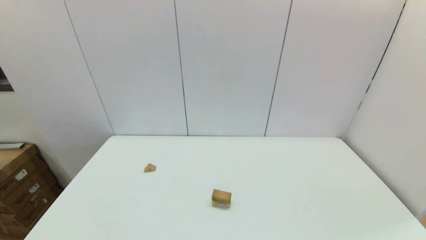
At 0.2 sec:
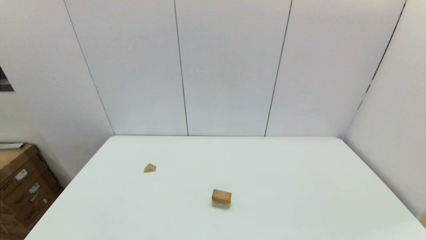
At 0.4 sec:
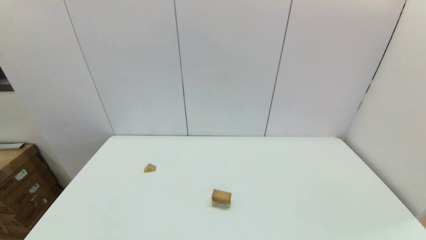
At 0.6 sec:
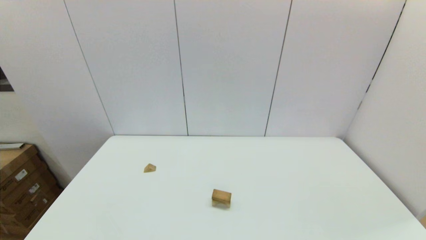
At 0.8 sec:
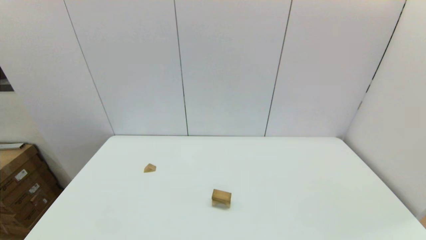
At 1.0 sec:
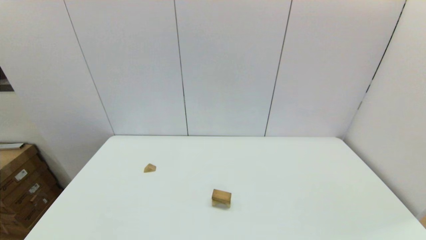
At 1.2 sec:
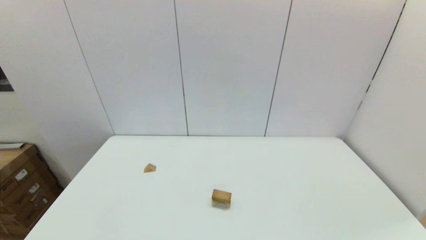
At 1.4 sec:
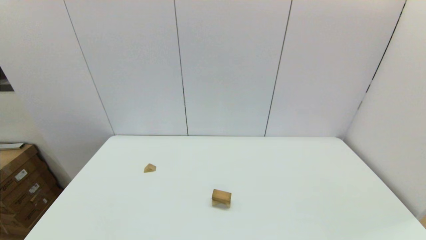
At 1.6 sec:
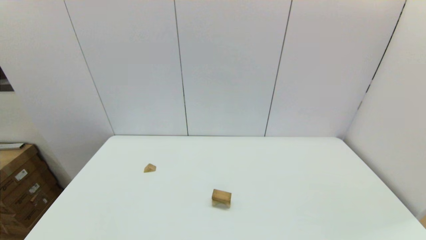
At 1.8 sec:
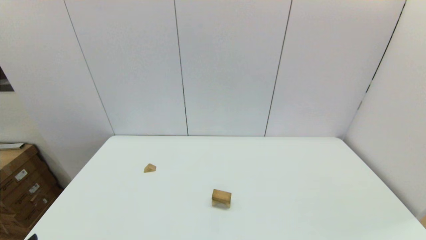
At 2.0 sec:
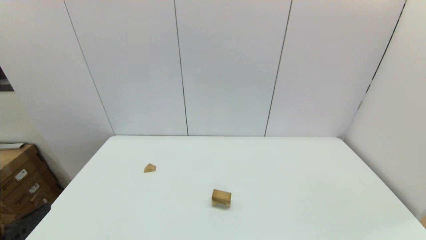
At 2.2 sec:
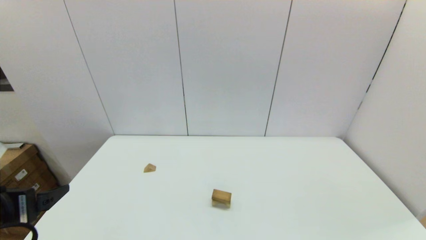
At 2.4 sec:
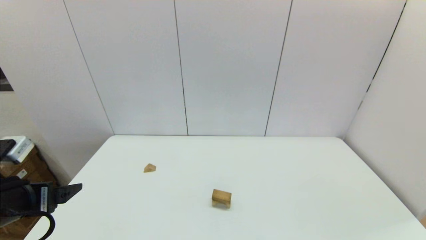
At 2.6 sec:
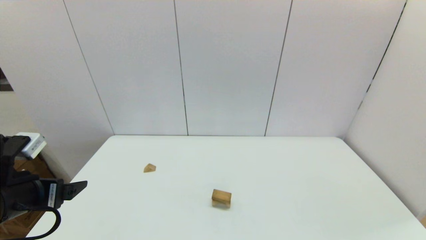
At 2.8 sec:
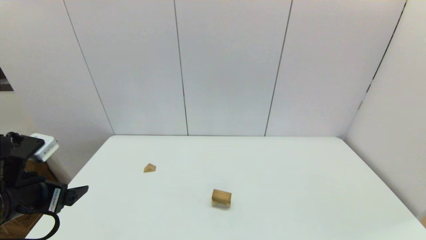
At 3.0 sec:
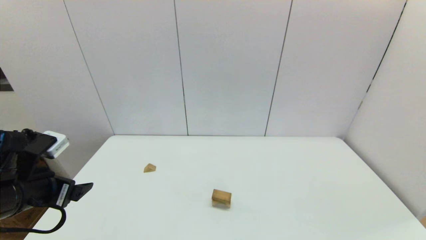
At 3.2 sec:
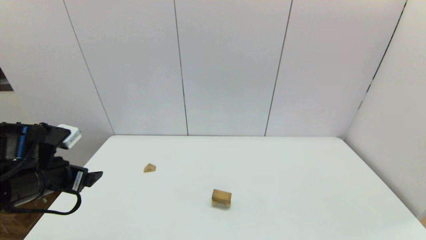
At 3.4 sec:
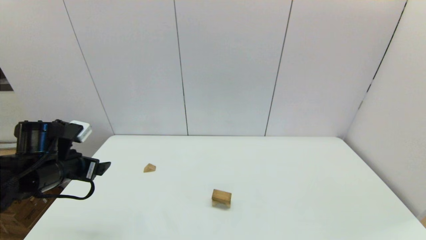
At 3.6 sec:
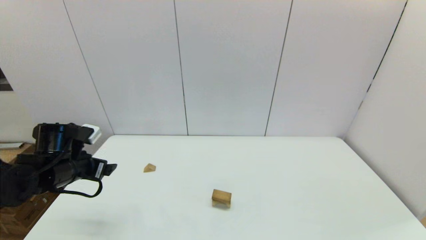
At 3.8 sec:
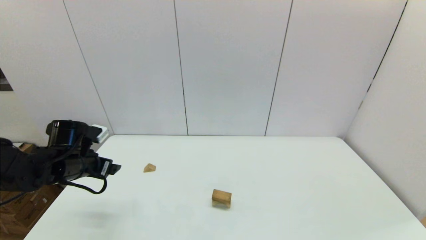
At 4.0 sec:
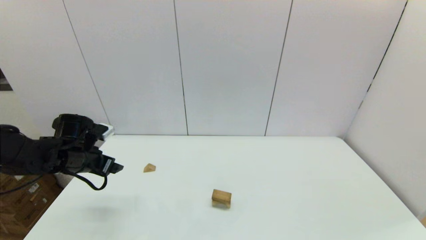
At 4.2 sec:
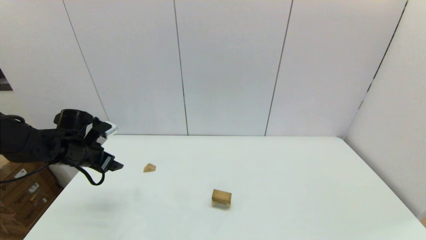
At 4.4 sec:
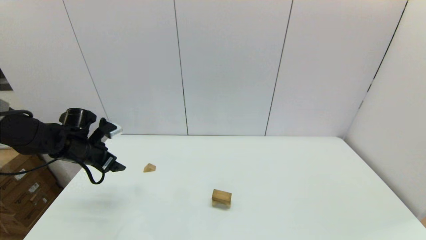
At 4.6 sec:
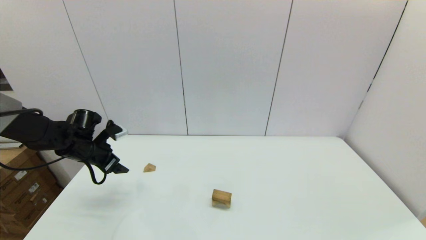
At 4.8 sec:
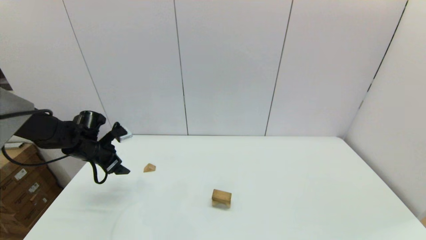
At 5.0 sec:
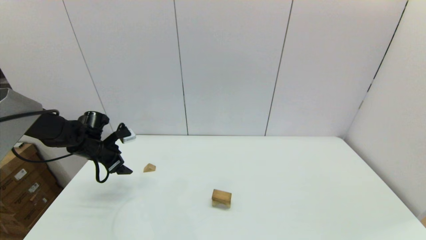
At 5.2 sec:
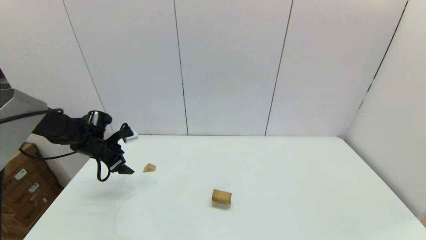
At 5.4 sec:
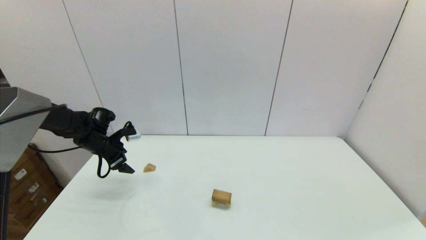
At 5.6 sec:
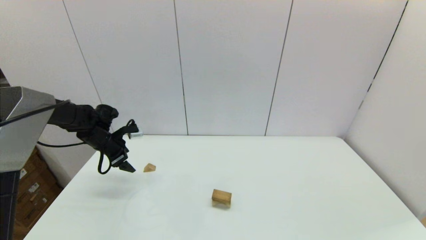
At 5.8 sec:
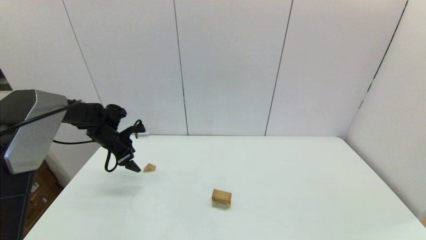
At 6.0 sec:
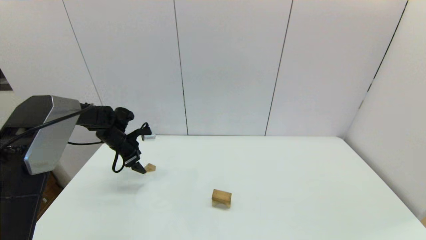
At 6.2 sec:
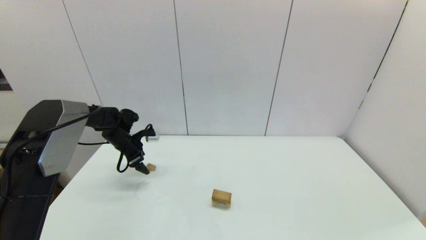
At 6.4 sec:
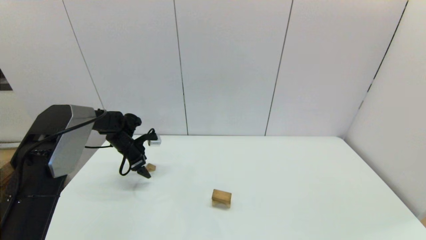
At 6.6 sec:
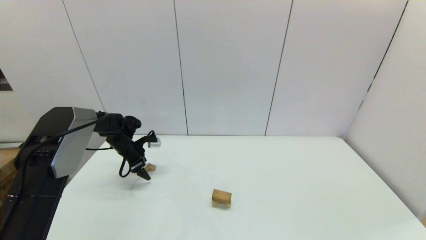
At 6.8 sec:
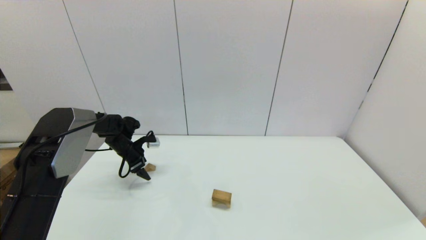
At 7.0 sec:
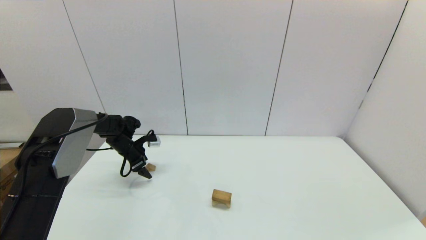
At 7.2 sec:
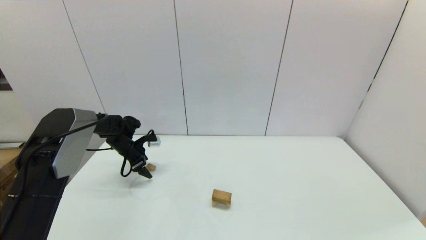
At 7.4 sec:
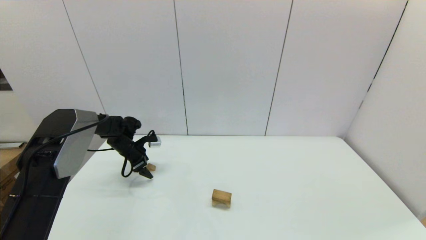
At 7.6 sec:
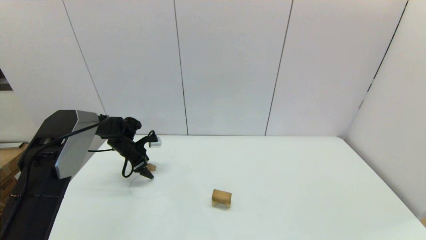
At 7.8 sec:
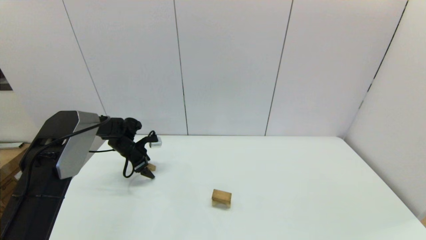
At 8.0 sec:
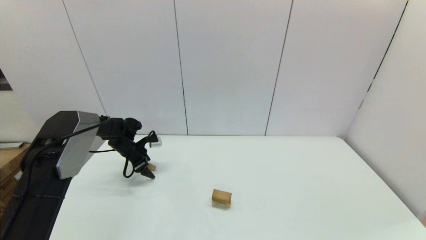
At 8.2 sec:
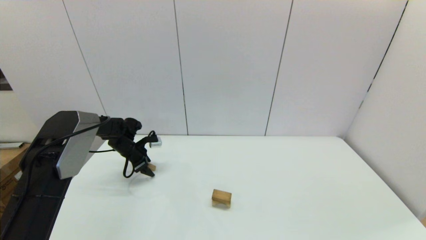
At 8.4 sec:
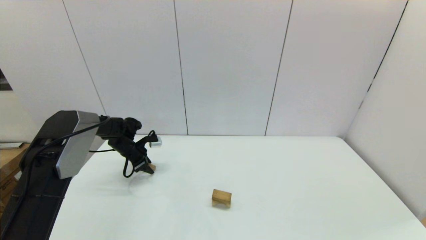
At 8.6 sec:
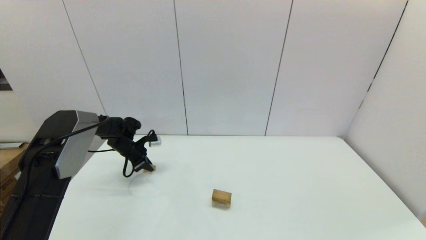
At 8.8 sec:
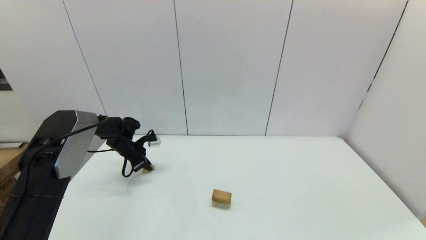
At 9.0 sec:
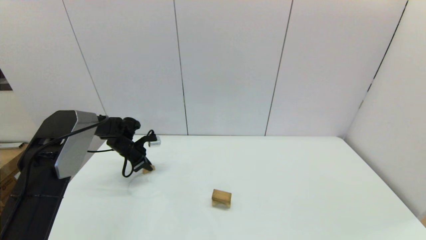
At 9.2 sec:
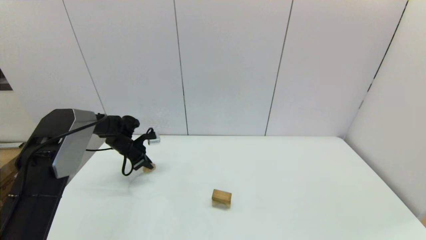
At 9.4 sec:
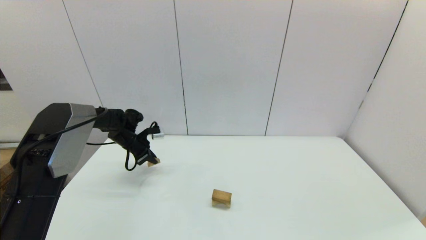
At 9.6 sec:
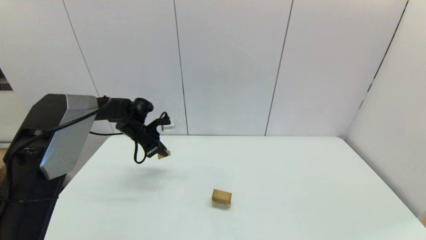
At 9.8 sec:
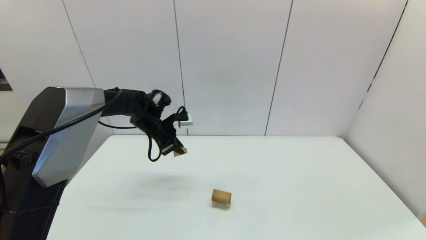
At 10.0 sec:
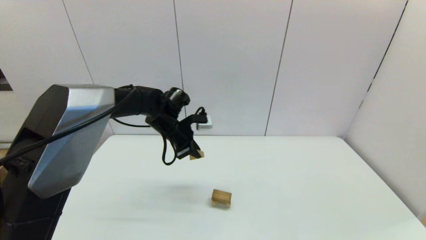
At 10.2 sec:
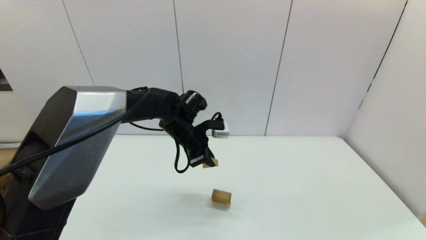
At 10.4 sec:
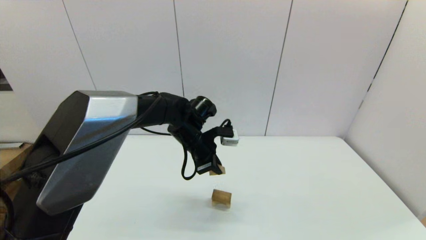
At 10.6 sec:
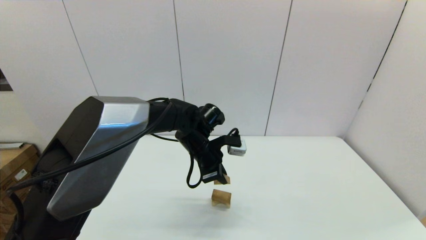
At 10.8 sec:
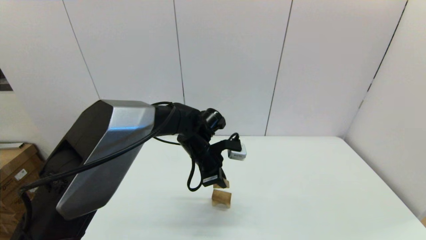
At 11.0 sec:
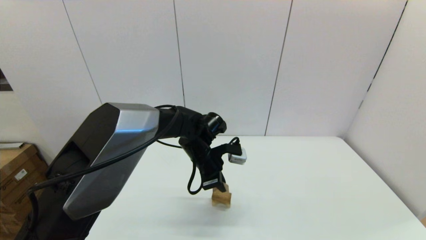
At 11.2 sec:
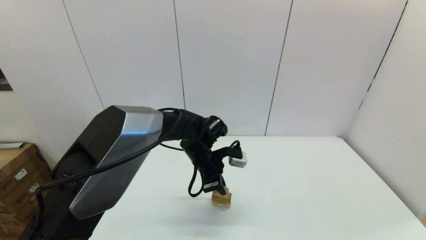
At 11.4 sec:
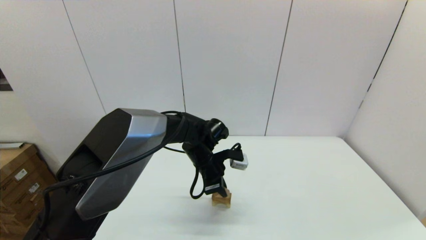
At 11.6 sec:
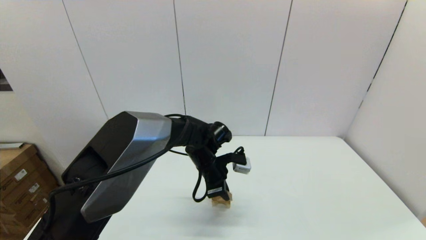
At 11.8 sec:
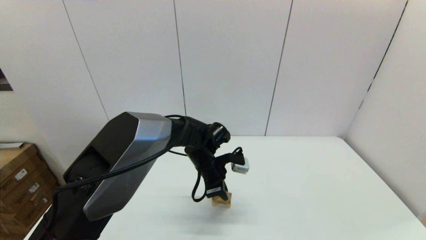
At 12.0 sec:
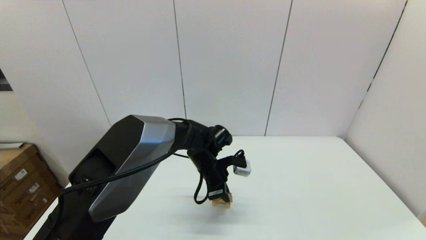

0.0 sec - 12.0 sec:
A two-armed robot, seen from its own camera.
Task of the whole recording: place the arched building blocks in the center of the table, set up the rectangular building blocks, and then set up the triangular building blocks.
Step, 0.0 sec - 8.6 sec: Grasp the triangle-shaped block with the left gripper.
1.6 sec - 3.0 sec: The left gripper moves forward, about 20 cm.
3.0 sec - 4.4 sec: The left gripper travels forward by some 15 cm.
4.4 sec - 6.0 sec: The left gripper moves forward, roughly 10 cm.
6.0 sec - 7.6 sec: The left gripper travels downward by roughly 5 cm.
9.0 sec - 10.4 sec: The left gripper moves to the right, upward and backward, roughly 30 cm.
10.4 sec - 12.0 sec: The left gripper goes about 10 cm downward.

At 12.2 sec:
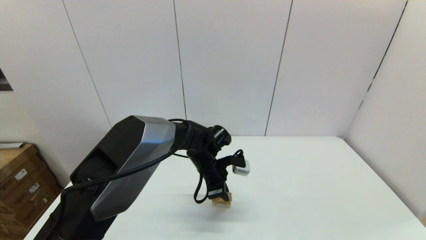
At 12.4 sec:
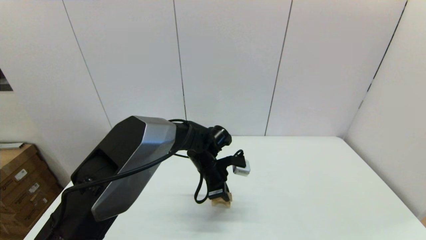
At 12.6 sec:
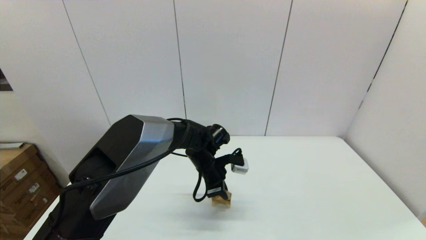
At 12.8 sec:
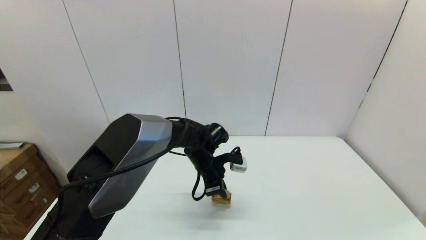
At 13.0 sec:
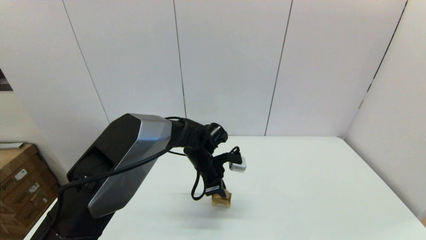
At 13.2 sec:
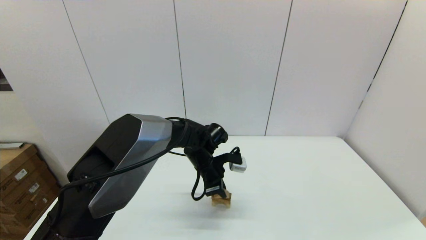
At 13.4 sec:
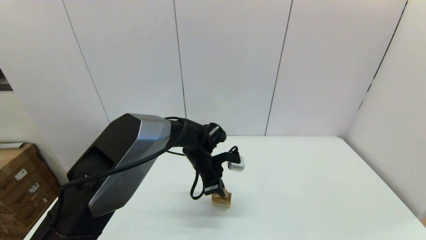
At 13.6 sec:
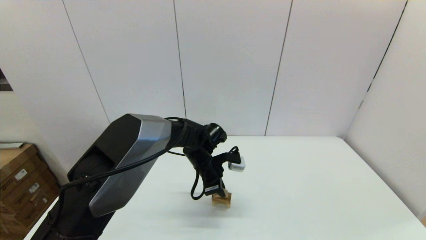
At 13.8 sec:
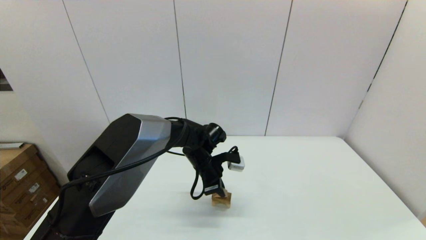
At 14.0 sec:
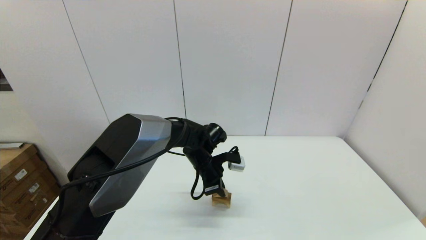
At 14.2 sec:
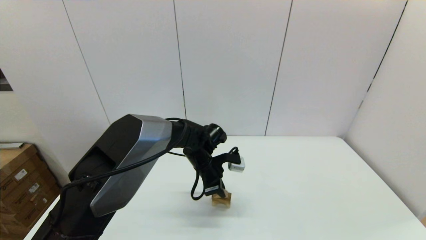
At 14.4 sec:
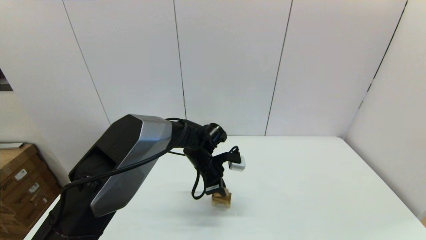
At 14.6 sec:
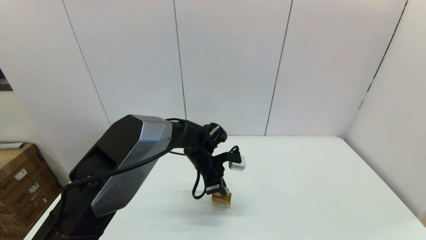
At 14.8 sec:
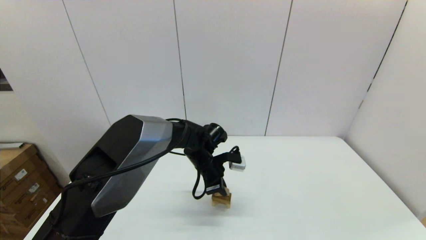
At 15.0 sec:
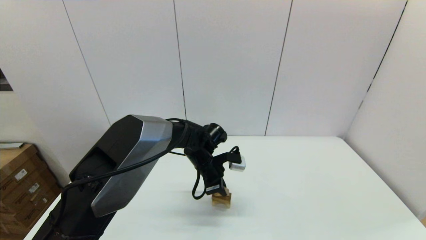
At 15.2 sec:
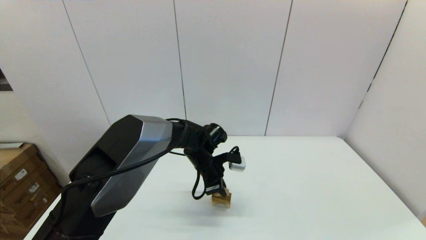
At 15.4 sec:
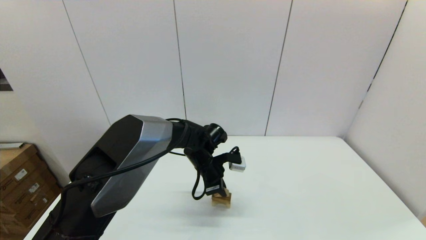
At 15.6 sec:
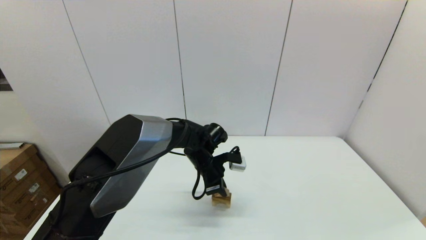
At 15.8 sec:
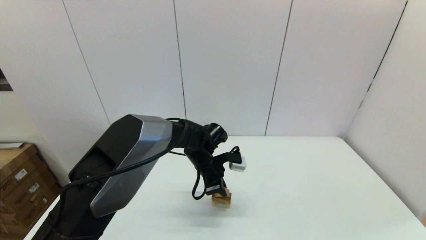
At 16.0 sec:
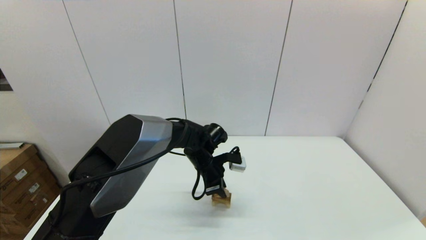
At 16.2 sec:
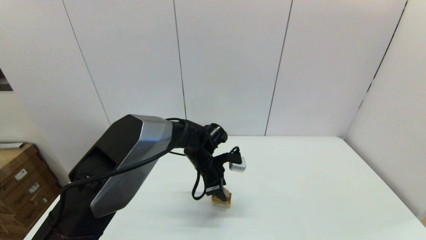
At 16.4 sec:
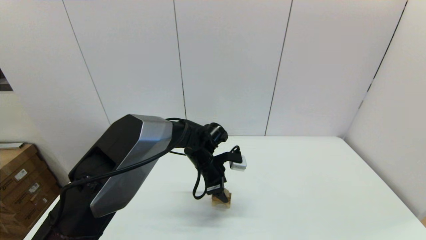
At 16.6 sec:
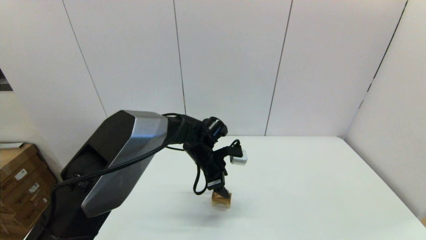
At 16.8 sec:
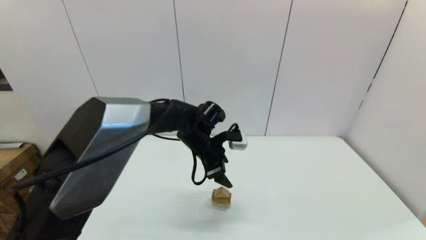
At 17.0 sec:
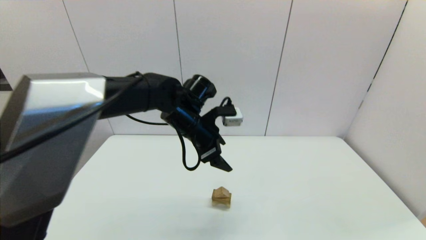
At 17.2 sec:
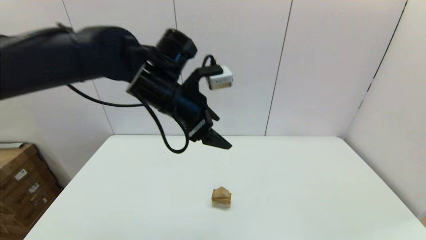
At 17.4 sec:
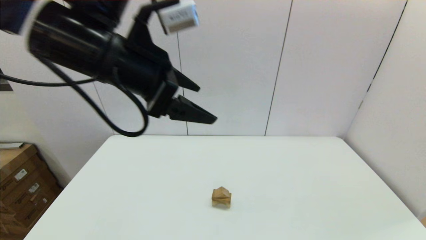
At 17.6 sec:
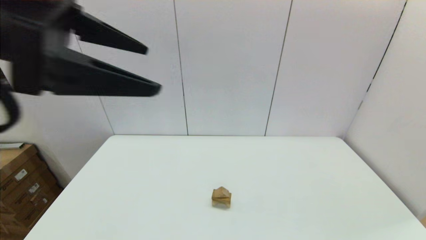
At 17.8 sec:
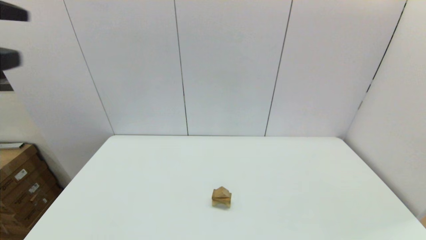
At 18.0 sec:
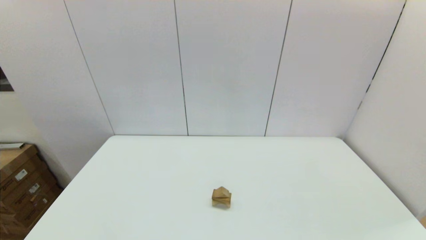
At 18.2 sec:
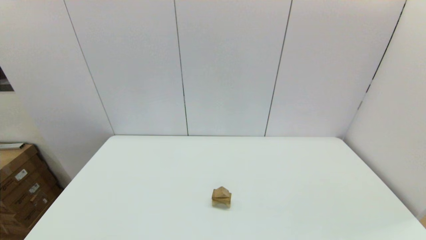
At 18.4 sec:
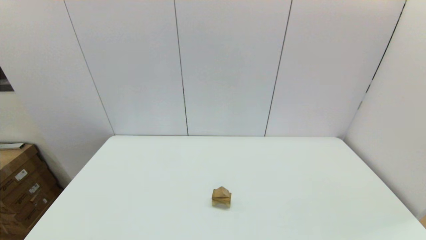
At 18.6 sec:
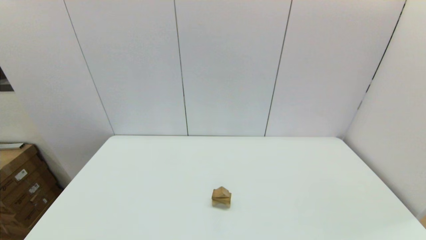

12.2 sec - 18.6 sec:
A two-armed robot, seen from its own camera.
Task of the whole recording: place the arched building blocks in the center of the table, set up the rectangular building blocks, and then set up the triangular building blocks.
12.2 sec - 13.8 sec: The grippers move only a little.
13.8 sec - 15.4 sec: Neither gripper changes place.
15.4 sec - 17.0 sec: The left gripper heads upward, covering roughly 15 cm, and opens its fingers.
17.0 sec - 18.6 sec: The left gripper goes some 50 cm backward and to the left.
